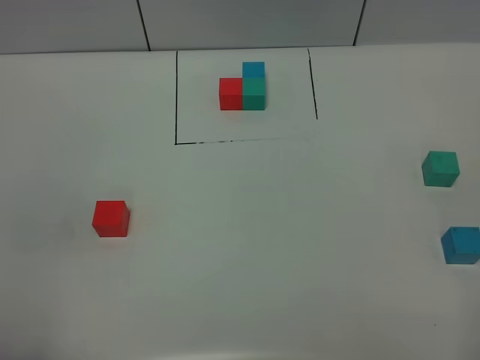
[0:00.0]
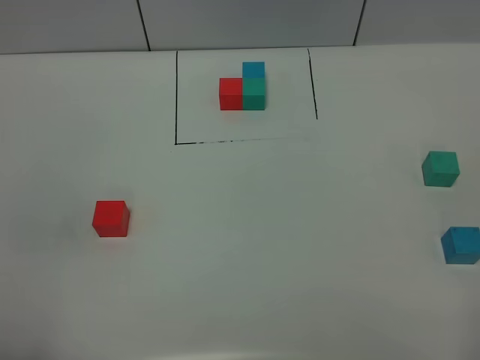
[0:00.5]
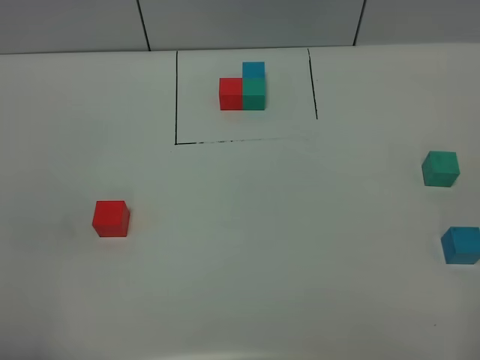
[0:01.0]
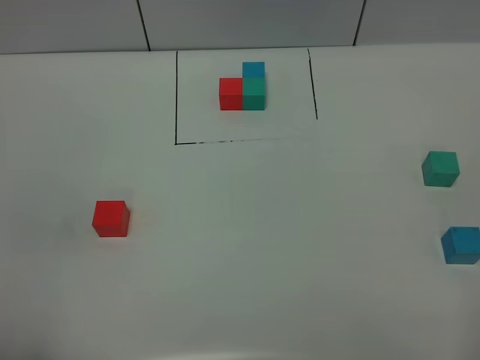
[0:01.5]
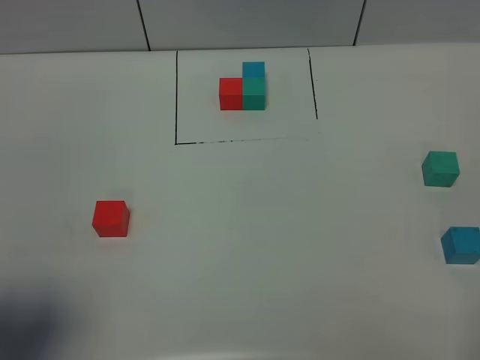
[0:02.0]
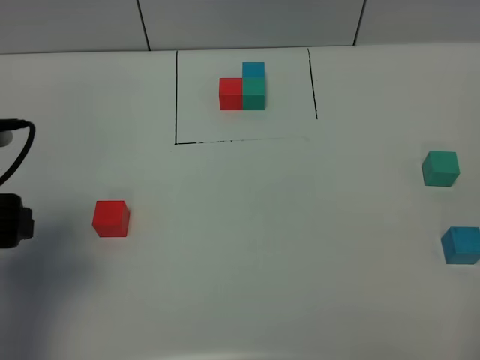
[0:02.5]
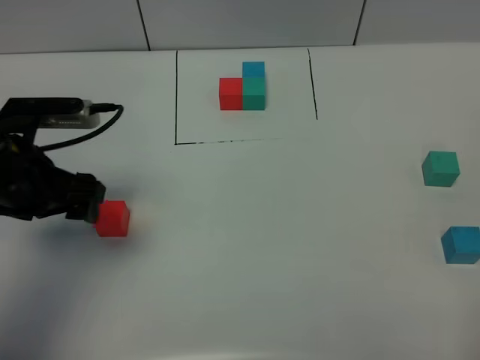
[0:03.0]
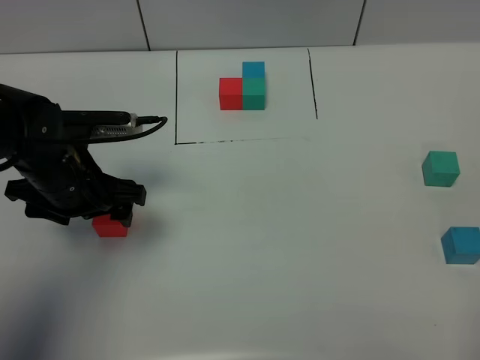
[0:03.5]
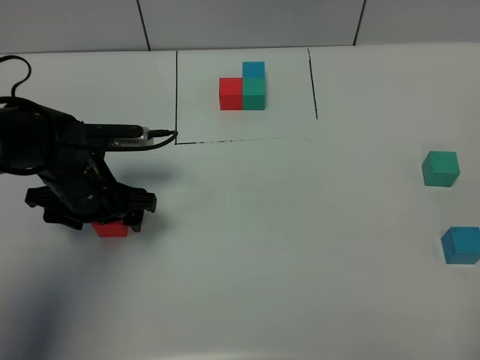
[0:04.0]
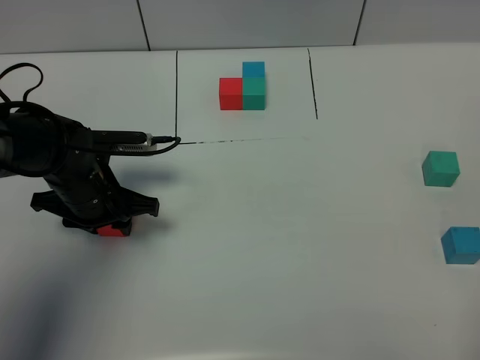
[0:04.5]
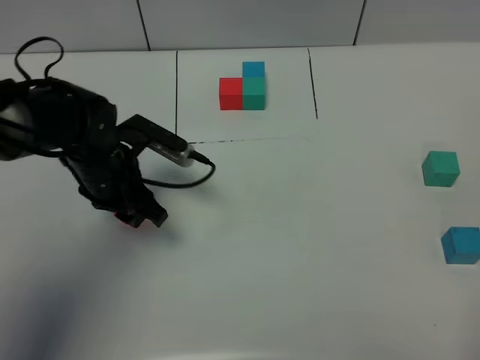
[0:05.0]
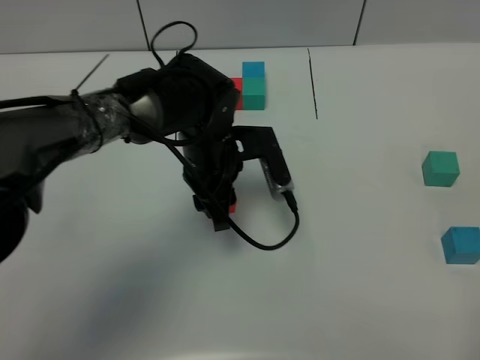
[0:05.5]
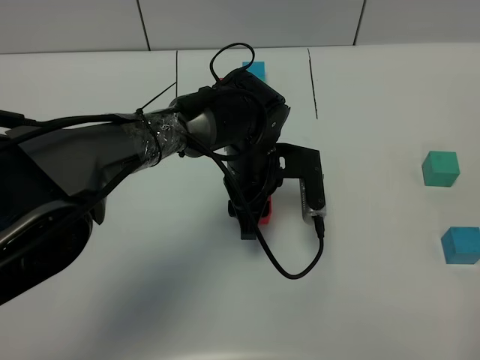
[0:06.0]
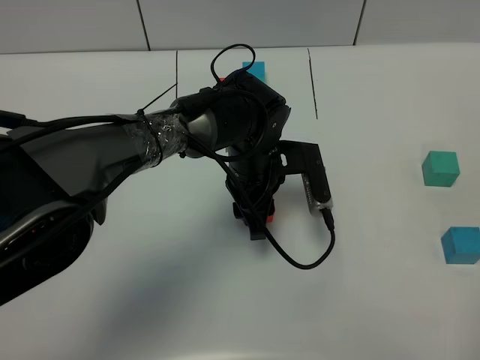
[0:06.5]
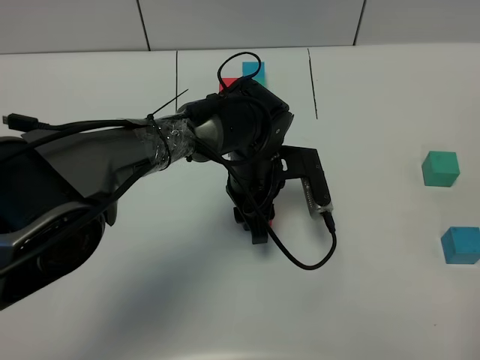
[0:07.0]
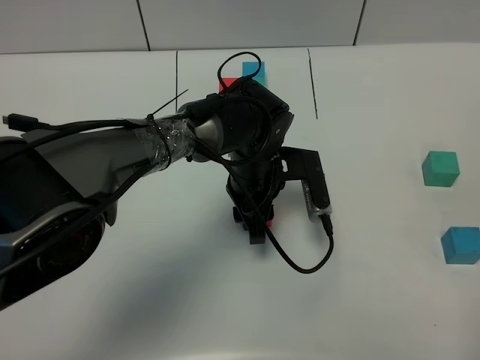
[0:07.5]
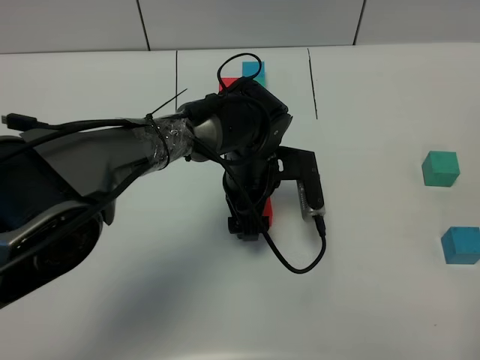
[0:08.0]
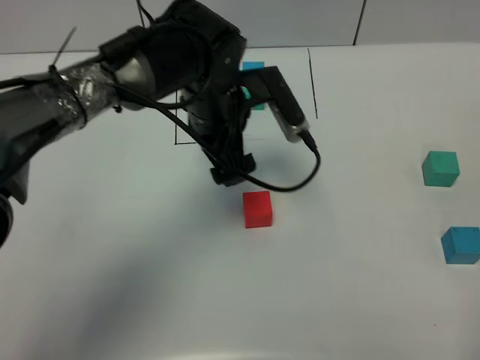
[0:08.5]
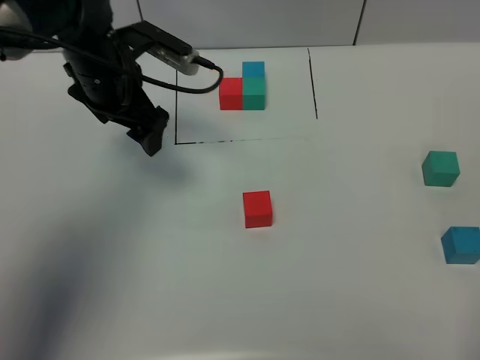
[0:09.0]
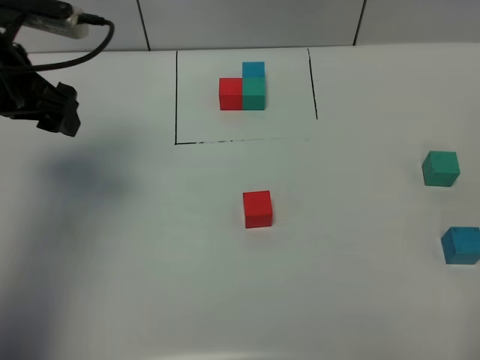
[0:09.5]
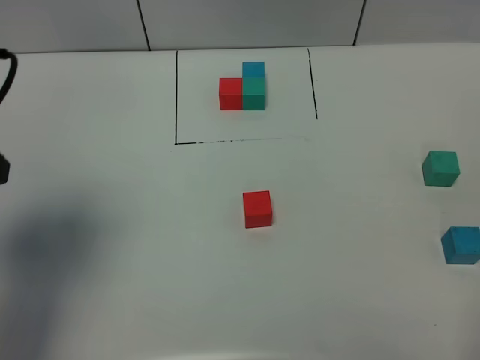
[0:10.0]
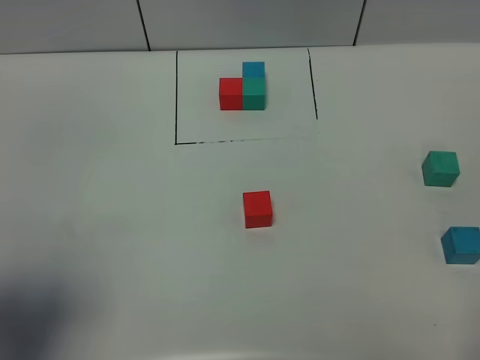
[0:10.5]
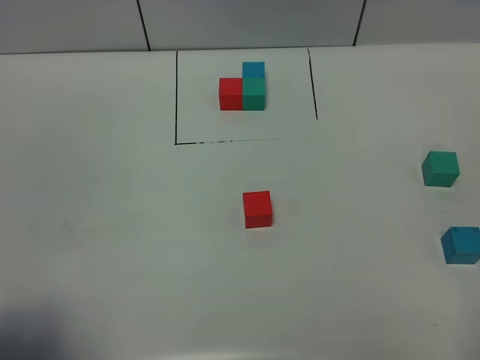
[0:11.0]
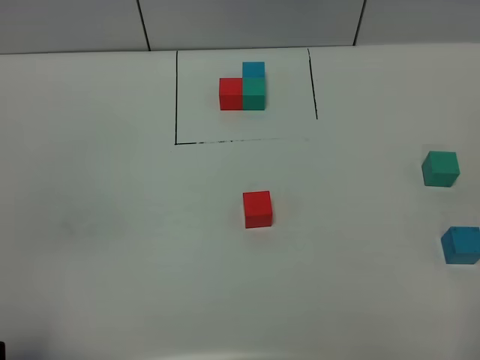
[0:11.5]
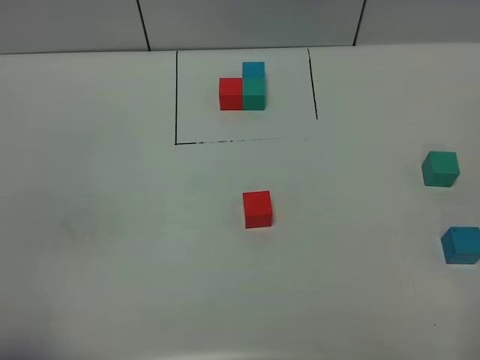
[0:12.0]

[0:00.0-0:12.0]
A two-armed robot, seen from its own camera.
Task of the whole recording: According to the building block template in front, assemble the scattered blocks together.
Step, 0:00.0 to 0:07.5: Put the red build block in the center of the table.
0:00.0 to 0:02.0: The left gripper heads forward, covering some 10 cm.
0:02.0 to 0:04.0: The left gripper travels forward, downward and to the right by about 30 cm.
0:04.0 to 0:06.0: The left gripper goes some 20 cm to the right, and closes its fingers.
0:06.0 to 0:08.0: The left gripper opens.
0:08.0 to 0:10.0: The left gripper is displaced to the left, upward and backward by approximately 40 cm.
0:10.0 to 0:12.0: The left gripper moves backward, some 20 cm.

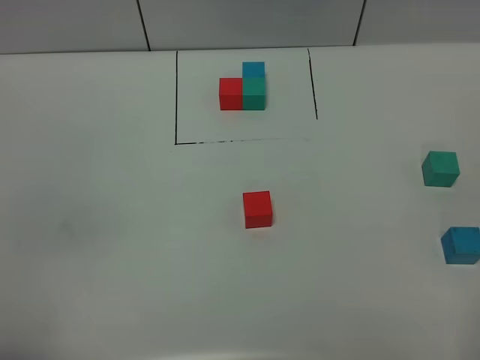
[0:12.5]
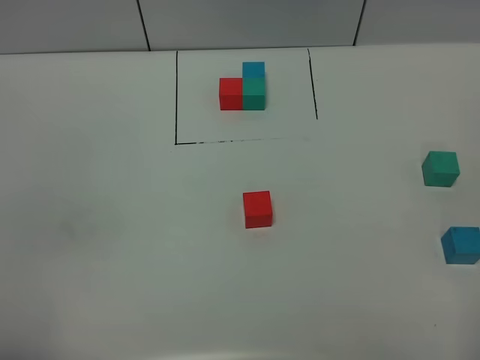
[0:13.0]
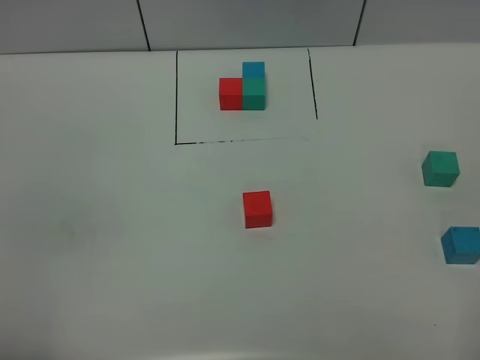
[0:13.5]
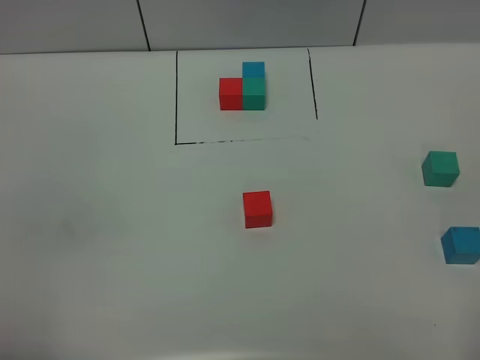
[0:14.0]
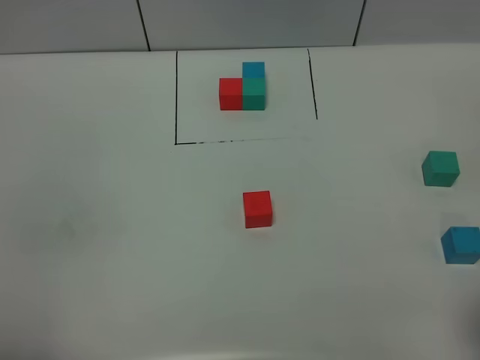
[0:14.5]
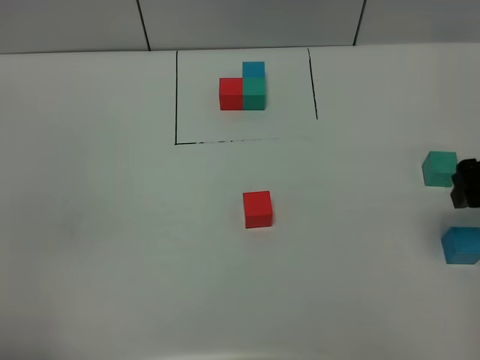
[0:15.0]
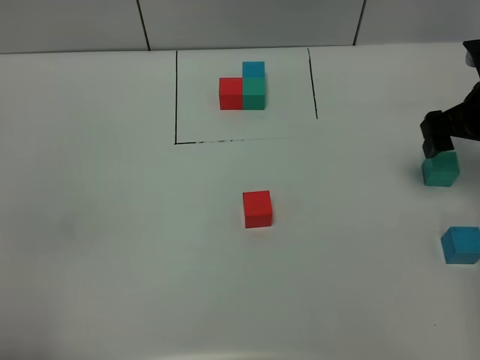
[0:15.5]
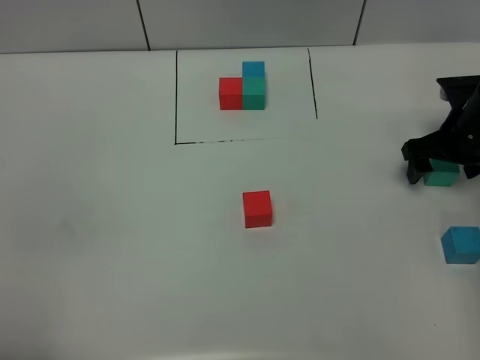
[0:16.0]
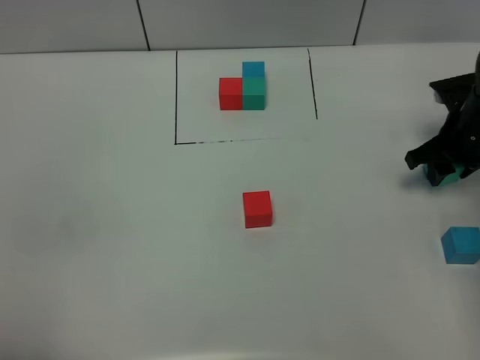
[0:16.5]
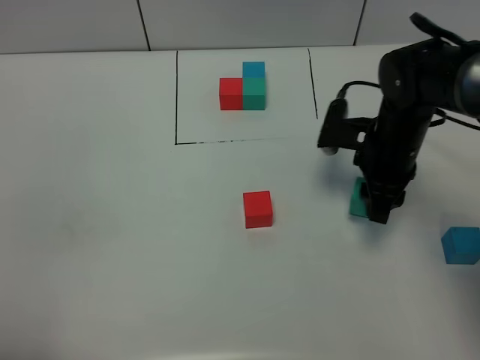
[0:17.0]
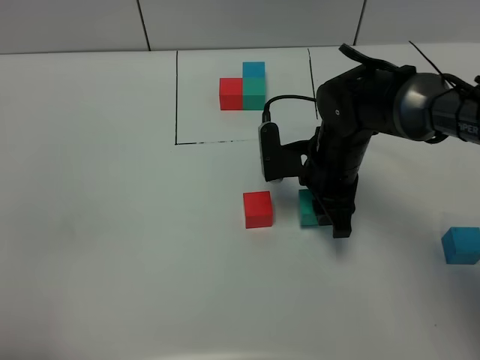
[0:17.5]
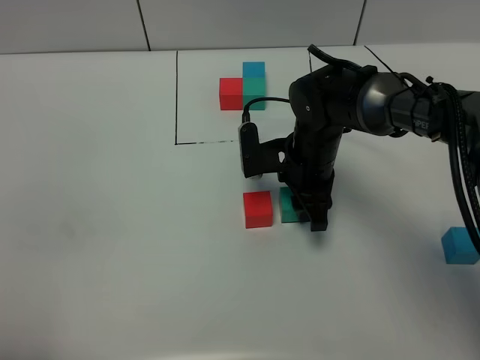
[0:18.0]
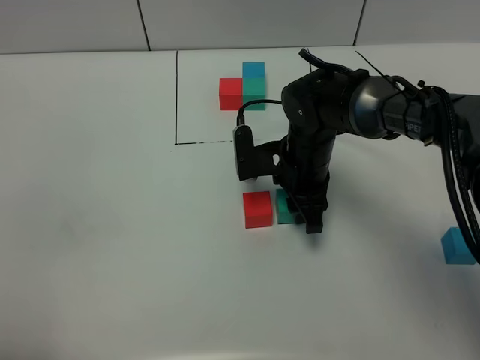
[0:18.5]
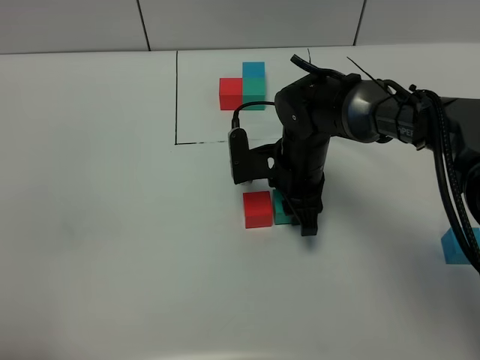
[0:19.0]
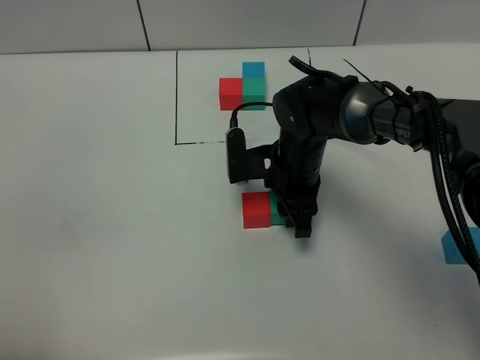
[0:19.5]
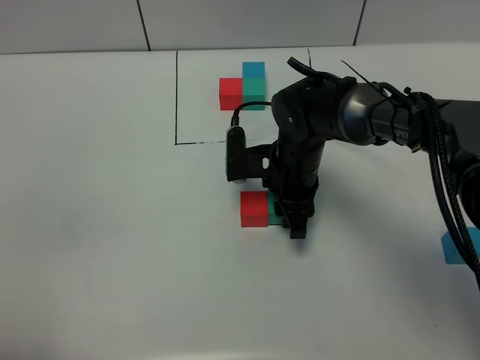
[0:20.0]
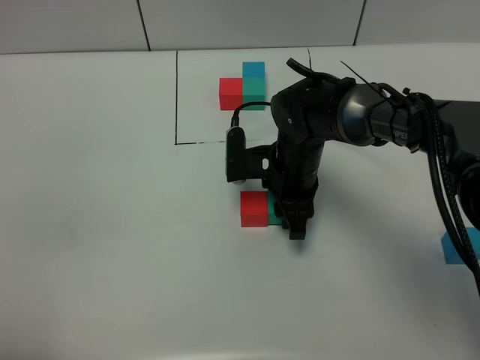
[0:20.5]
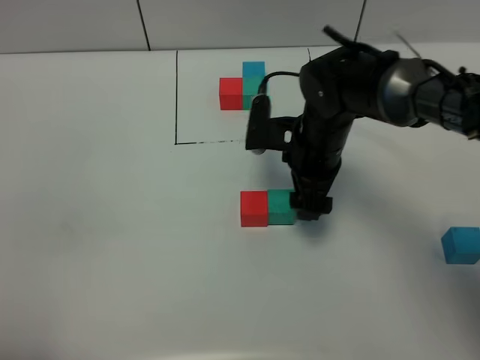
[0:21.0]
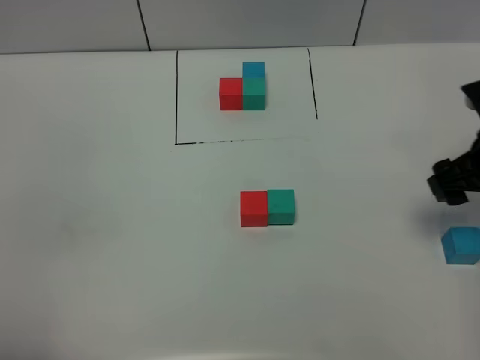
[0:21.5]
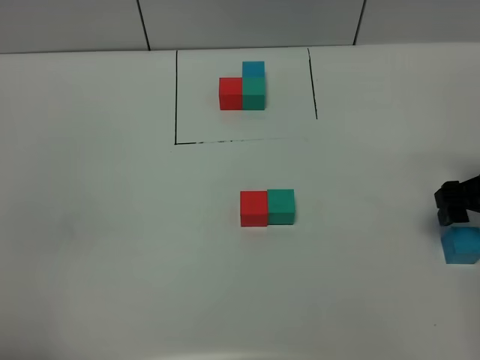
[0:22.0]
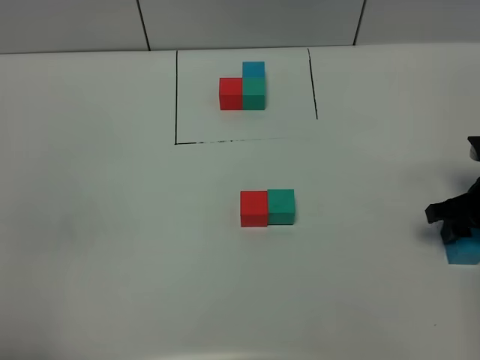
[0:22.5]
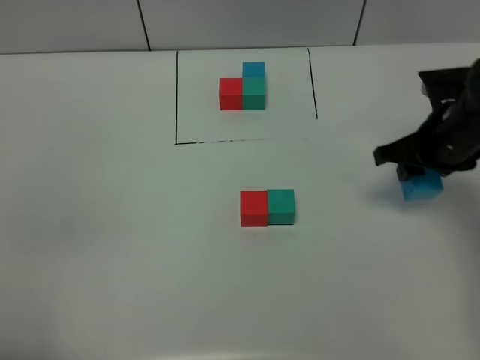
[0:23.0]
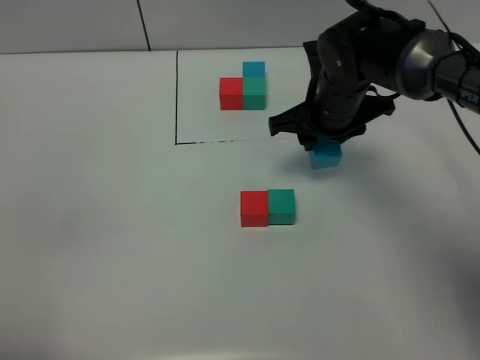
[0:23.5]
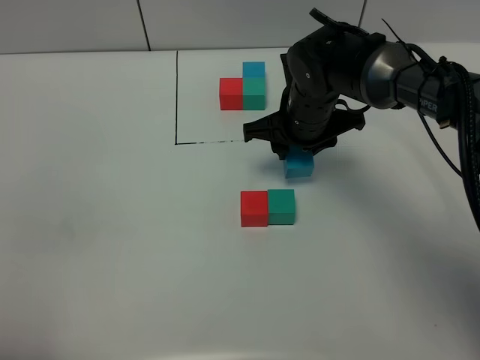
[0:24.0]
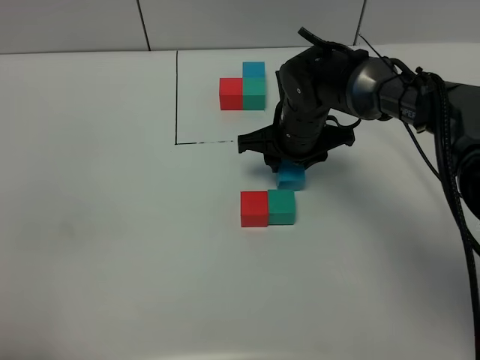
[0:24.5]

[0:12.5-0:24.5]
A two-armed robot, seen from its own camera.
Task of the whole recording: According to the building block template in front, assemble the scattered blocks together.
Step, 0:12.5 to 0:20.5: Put the green build block on the right of the red build block.
0:14.5 to 0:16.5: The right gripper travels forward and downward by about 30 cm, and closes its fingers.
0:16.5 to 0:18.5: The right gripper shifts roughly 20 cm to the left.
0:18.5 to 0:20.5: The grippers stay close to where they were, moving slightly.
0:20.5 to 0:22.5: The right gripper shifts approximately 25 cm to the right, and opens, then closes once more.
0:22.5 to 0:24.5: The right gripper goes some 25 cm to the left and forward.

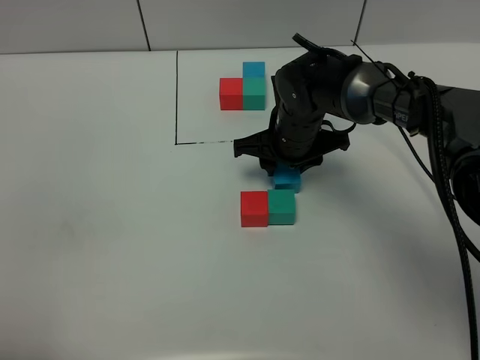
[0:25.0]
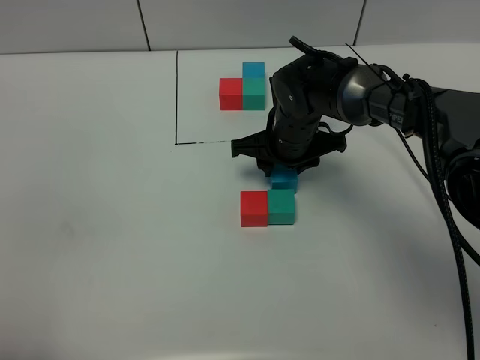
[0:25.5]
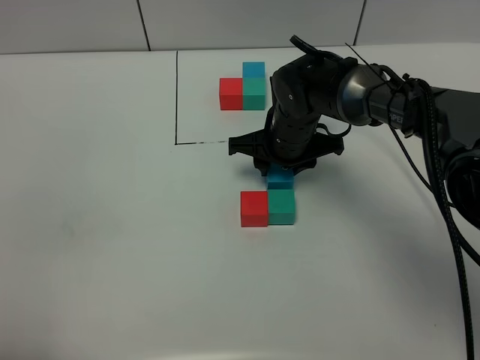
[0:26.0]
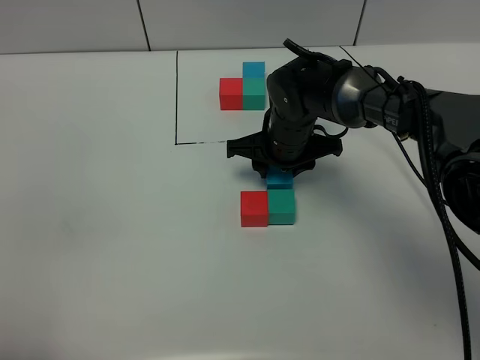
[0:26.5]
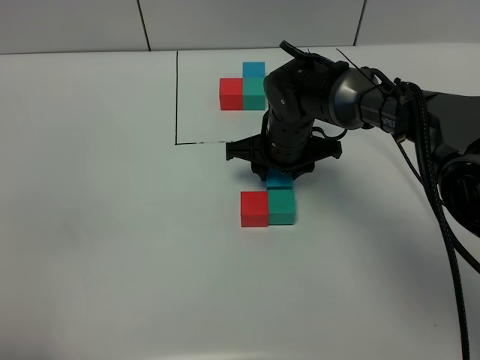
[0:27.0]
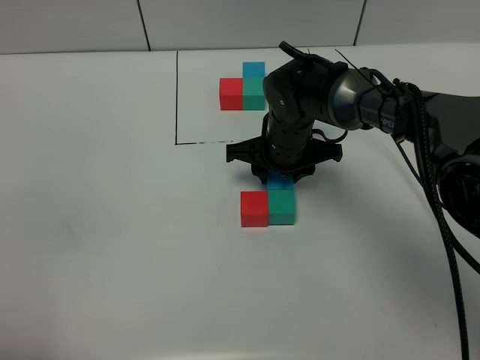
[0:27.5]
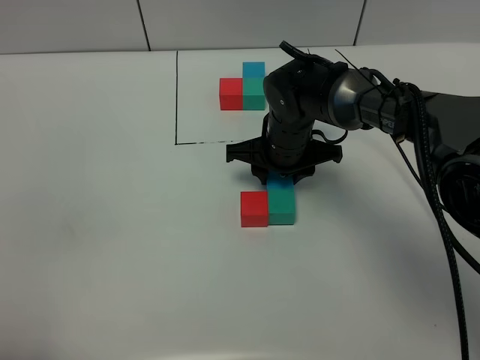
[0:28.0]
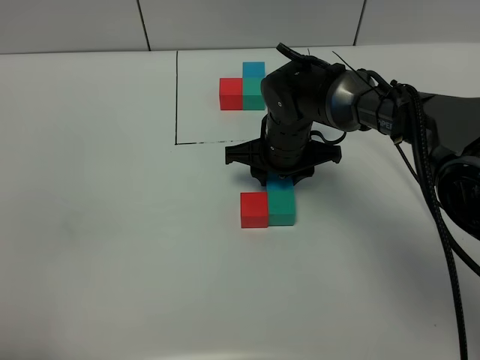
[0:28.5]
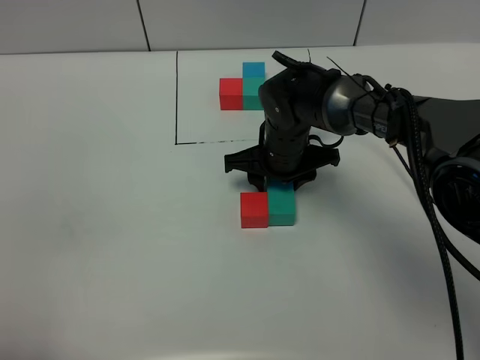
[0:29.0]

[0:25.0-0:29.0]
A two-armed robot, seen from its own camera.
Task of the whole recording: According to the building block template in front, assemble the scattered blocks together.
0:25.0 to 0:27.0: The grippers stay close to where they were, moving slightly.
0:27.0 to 0:29.0: Neither gripper changes place.
